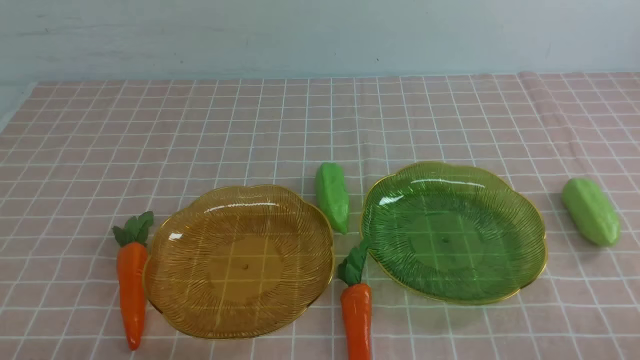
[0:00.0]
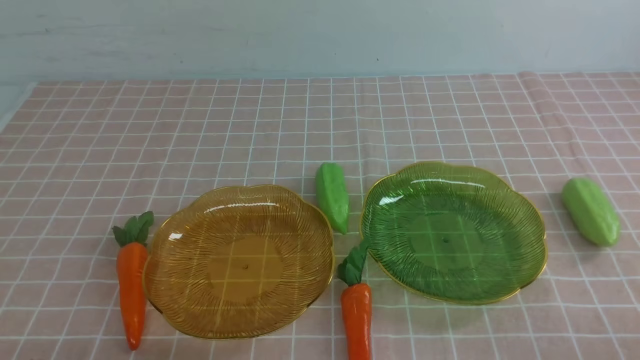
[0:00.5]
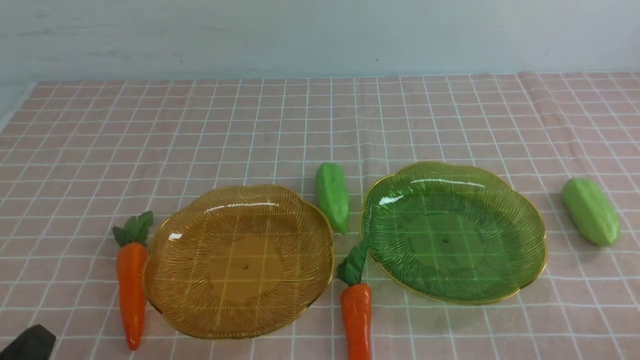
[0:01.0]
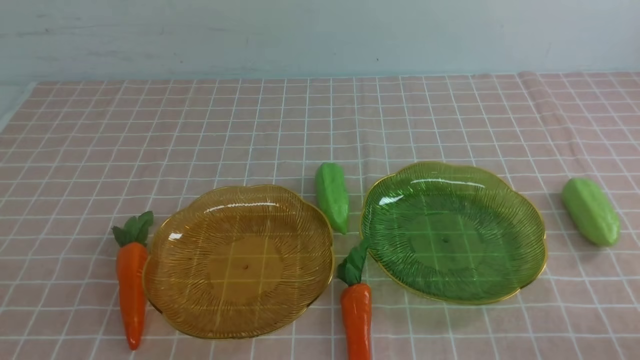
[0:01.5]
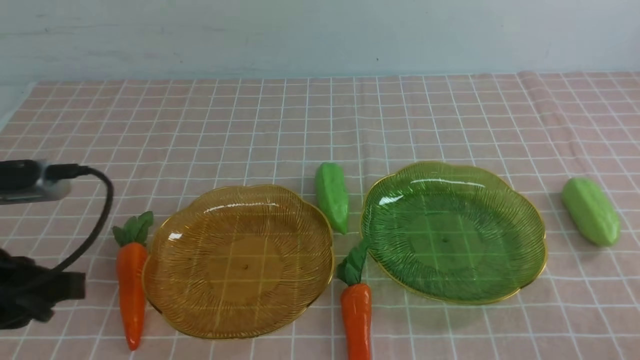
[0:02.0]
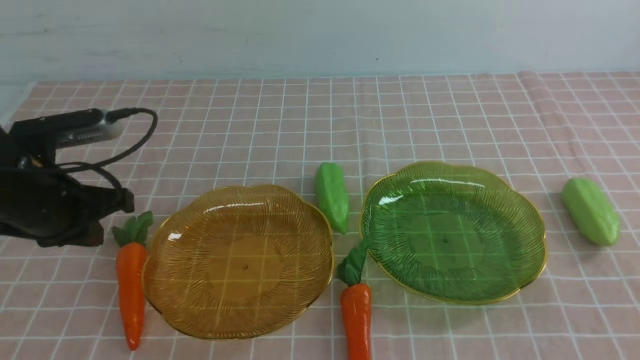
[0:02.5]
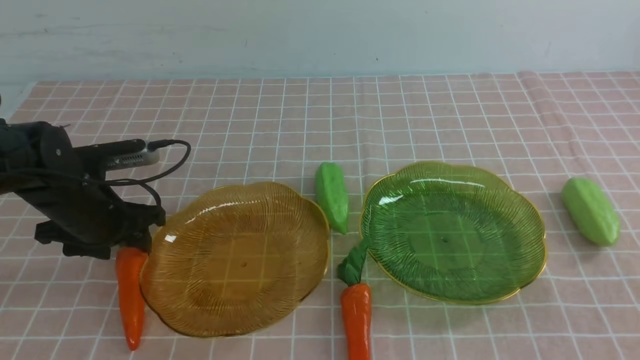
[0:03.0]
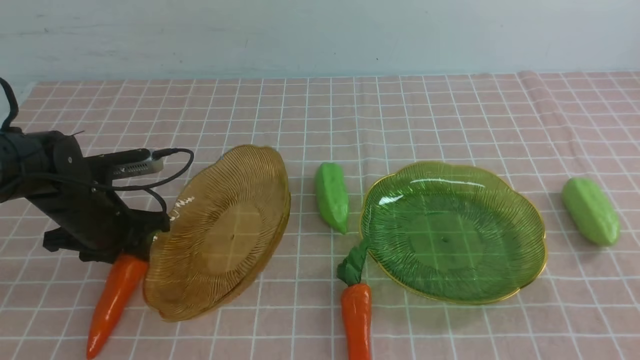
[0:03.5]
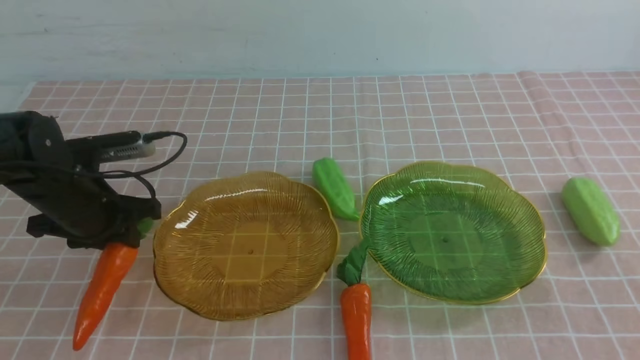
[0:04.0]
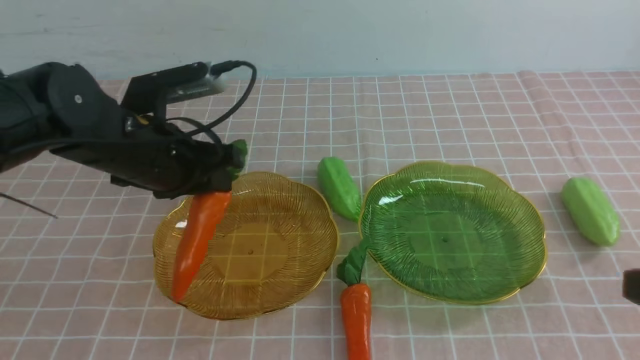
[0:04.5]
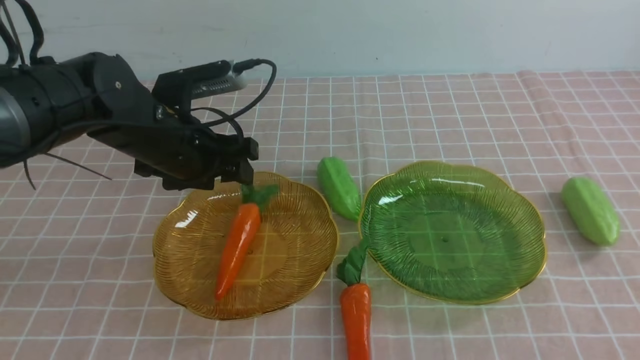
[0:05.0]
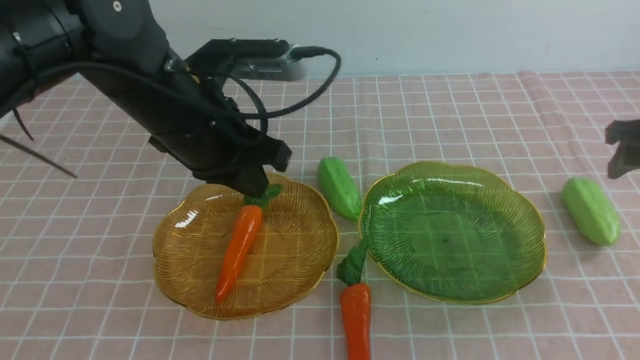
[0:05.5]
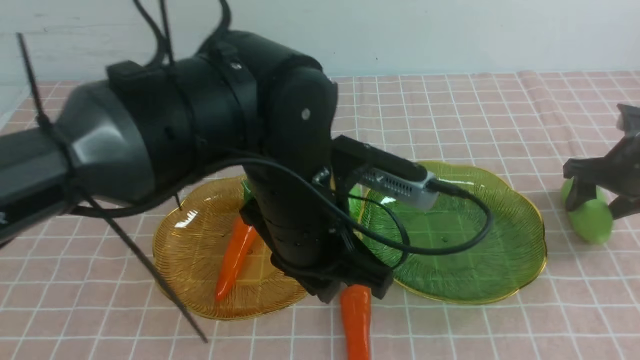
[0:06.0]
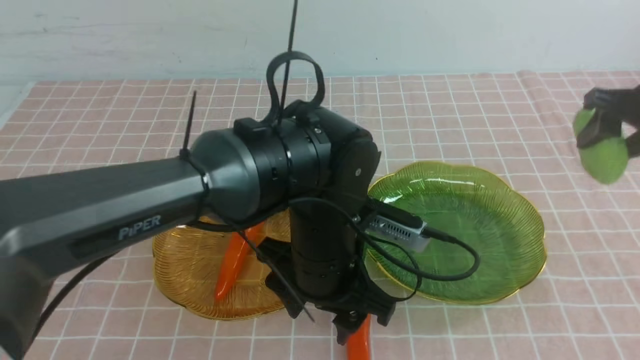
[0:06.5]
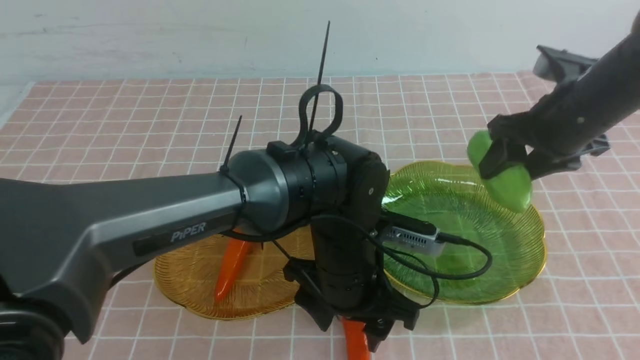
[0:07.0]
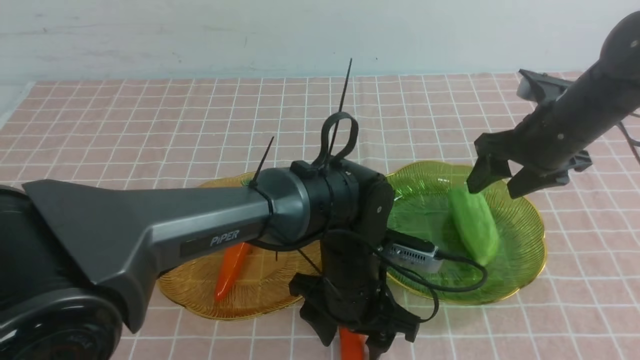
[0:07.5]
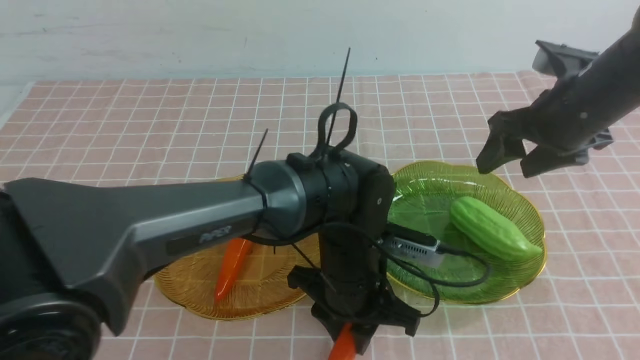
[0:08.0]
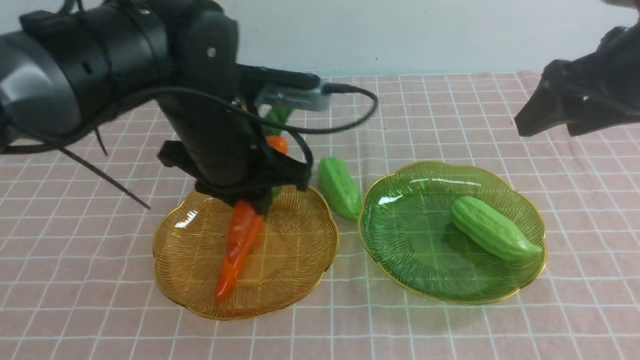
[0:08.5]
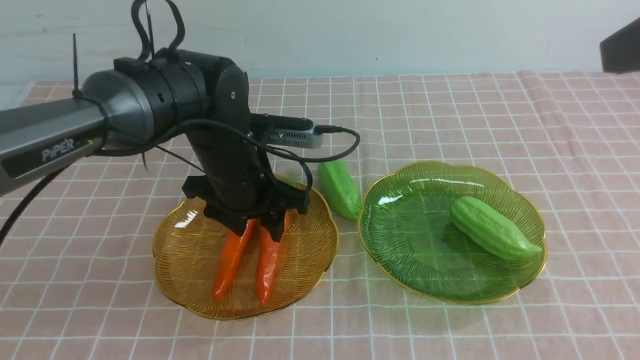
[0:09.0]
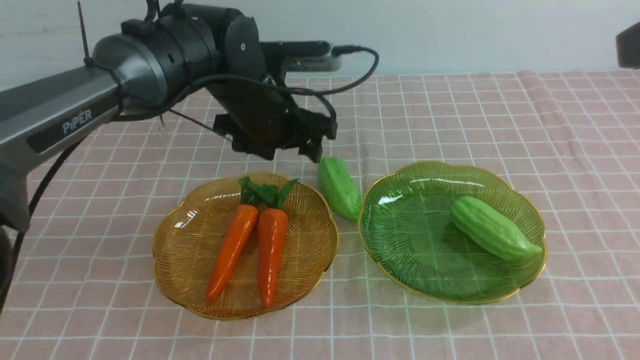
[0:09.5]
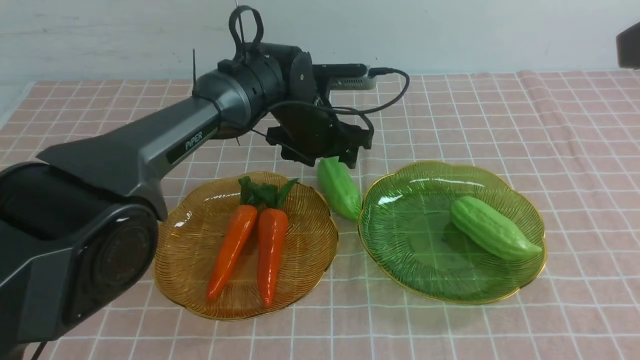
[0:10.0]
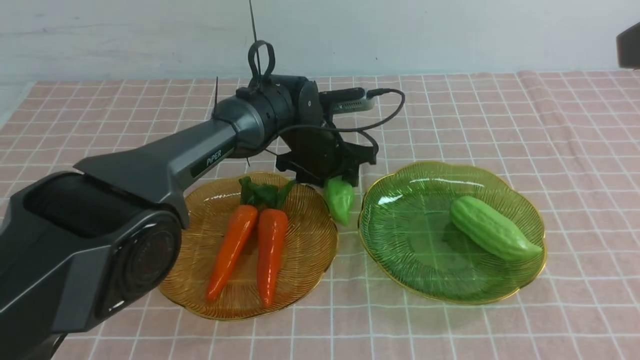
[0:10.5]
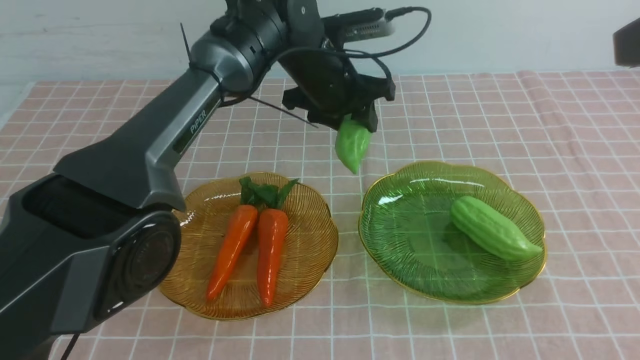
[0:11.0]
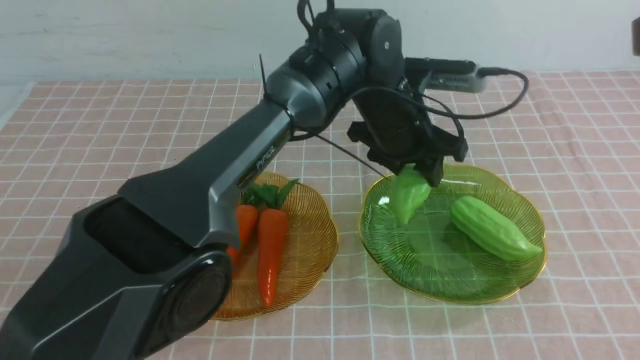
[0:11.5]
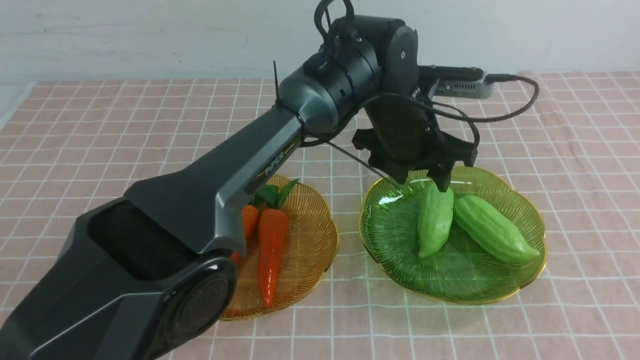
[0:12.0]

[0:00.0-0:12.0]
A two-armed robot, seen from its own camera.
Step, 0:00.0 to 0:04.5: use the left arm to grab a carrot and put it into the left plate.
Step, 0:05.5 to 0:07.5: use the right arm to grab a chayote and put it into the right plate.
Step, 0:08.0 to 0:09.0: use the left arm to grab a carrot and put it into the left plate.
Step, 0:09.5 to 0:11.5: use the left arm to grab a chayote and put it into the right plate.
0:00.0 to 0:02.0: The left gripper travels upward and forward by about 15 cm.
0:02.0 to 0:04.0: The left gripper is displaced forward and downward by roughly 20 cm, and opens its fingers; the right gripper shifts roughly 10 cm upward.
0:04.0 to 0:06.0: The left gripper moves to the right, approximately 25 cm, while the right gripper travels forward and downward by some 35 cm, and opens up.
0:06.0 to 0:08.0: The left gripper is displaced downward by roughly 5 cm, and opens, then closes again, while the right gripper is displaced to the left and upward by some 15 cm.
0:08.0 to 0:10.0: The right gripper travels upward and backward by about 25 cm, while the left gripper heads forward, covering some 20 cm, and opens its fingers.
0:10.0 to 0:12.0: The right gripper shifts about 20 cm backward, and closes its fingers. The left gripper travels upward and backward by roughly 25 cm, and closes up.

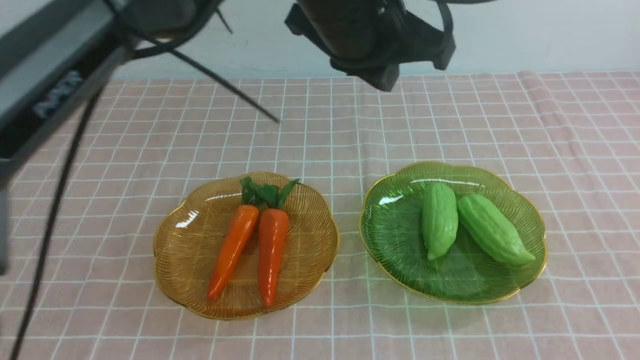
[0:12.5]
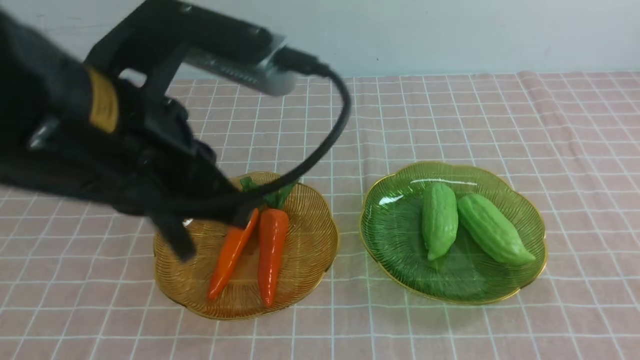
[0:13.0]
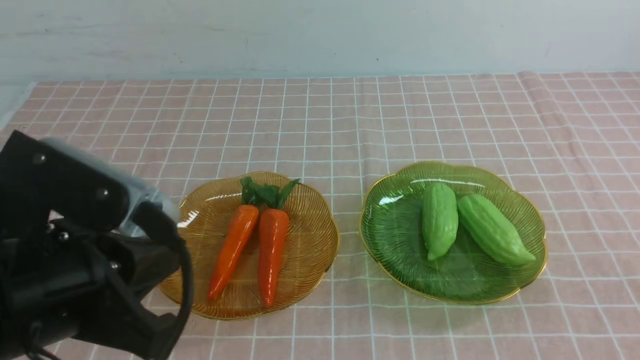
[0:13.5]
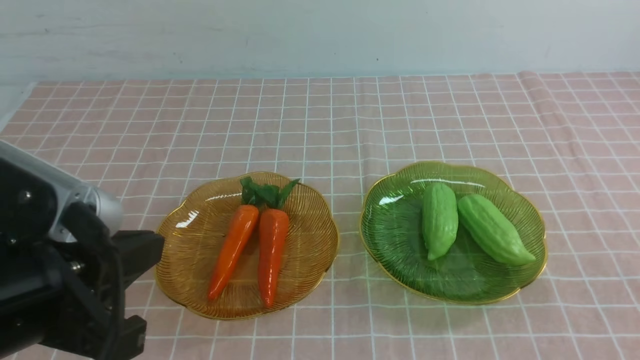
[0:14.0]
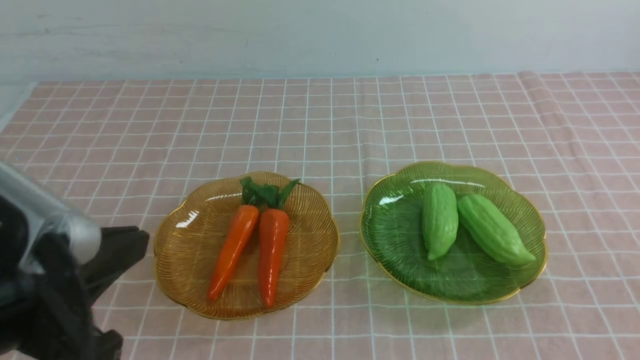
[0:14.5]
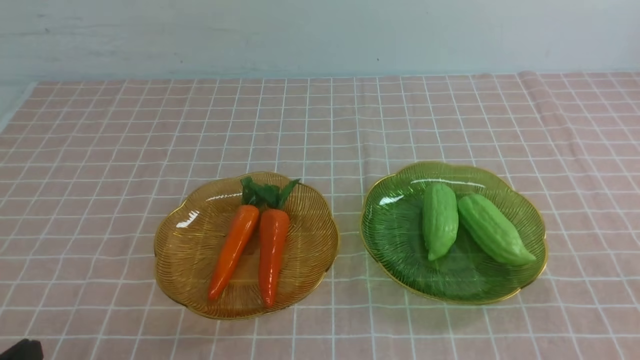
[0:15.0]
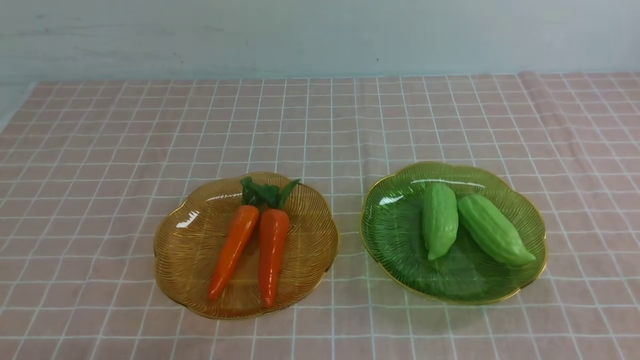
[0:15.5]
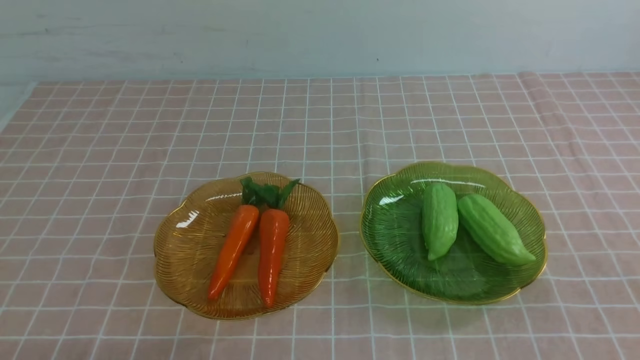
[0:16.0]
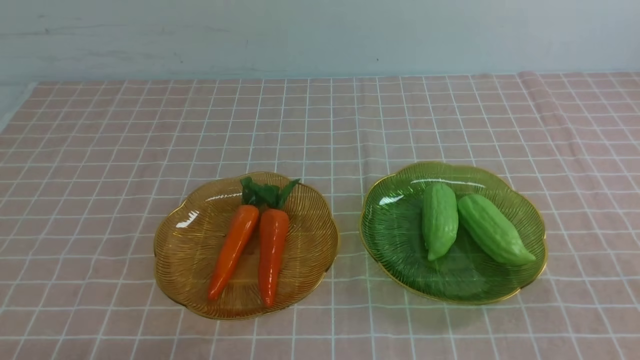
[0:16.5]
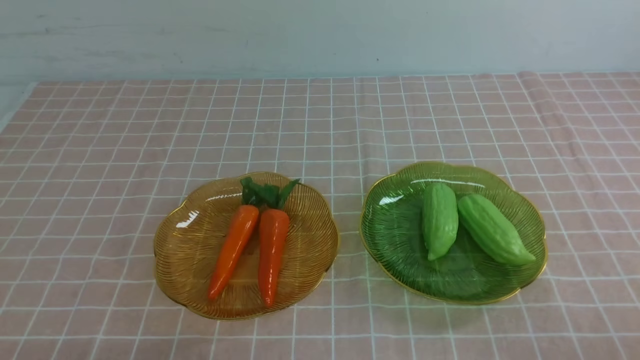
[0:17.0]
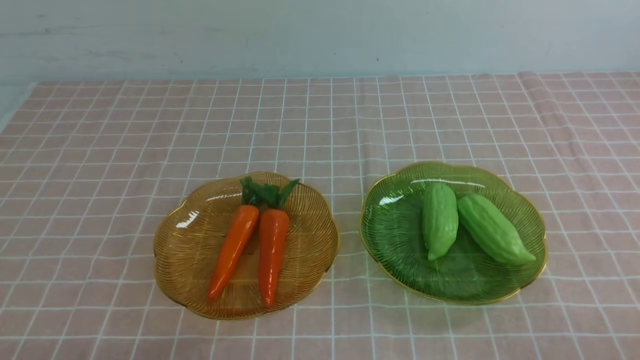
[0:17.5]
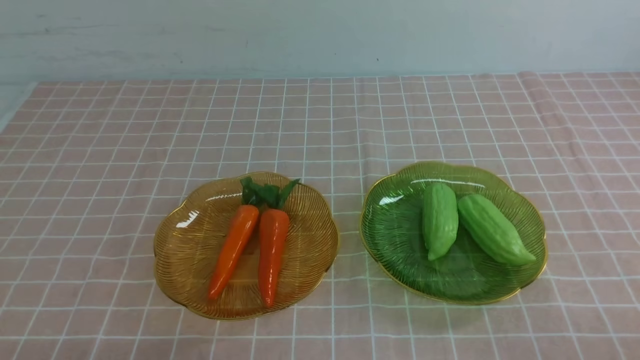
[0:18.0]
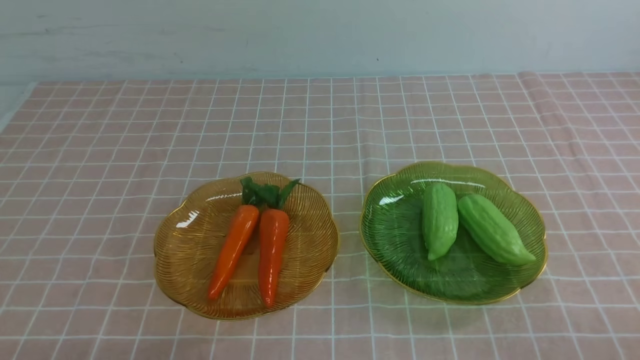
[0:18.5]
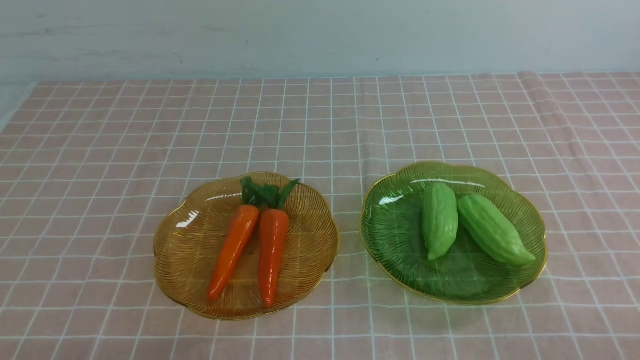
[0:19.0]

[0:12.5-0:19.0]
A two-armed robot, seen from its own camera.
0:12.5 to 0:14.5: The left gripper shifts about 20 cm backward, to the left and downward.
0:14.5 to 0:17.0: The grippers both shift downward by roughly 15 cm.
